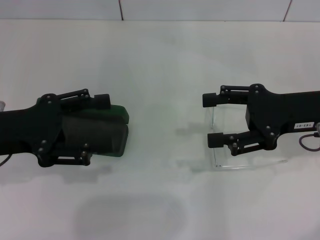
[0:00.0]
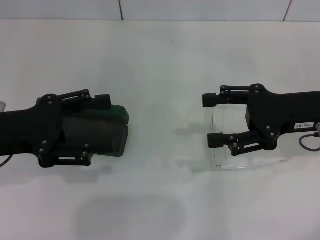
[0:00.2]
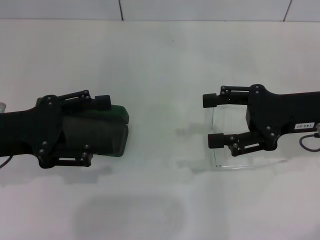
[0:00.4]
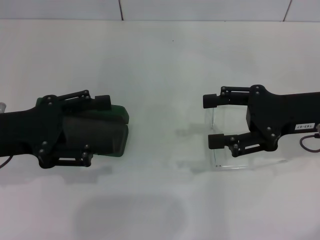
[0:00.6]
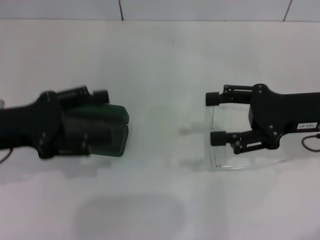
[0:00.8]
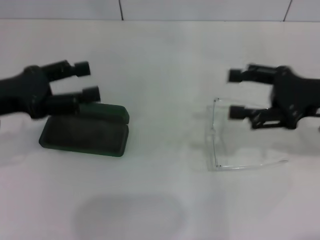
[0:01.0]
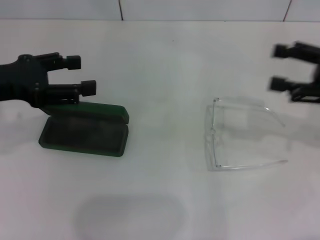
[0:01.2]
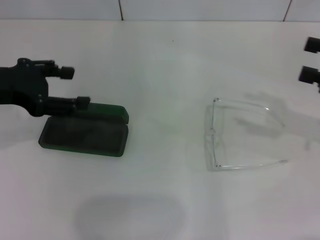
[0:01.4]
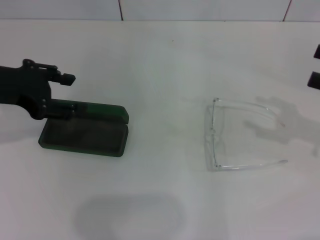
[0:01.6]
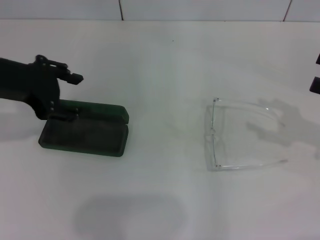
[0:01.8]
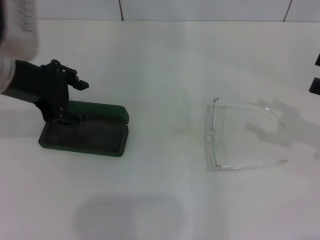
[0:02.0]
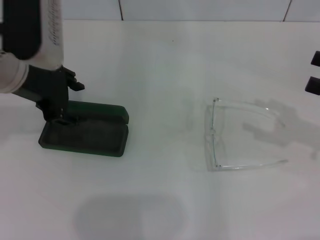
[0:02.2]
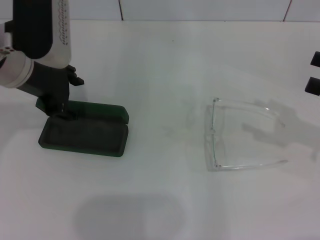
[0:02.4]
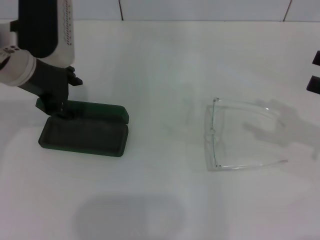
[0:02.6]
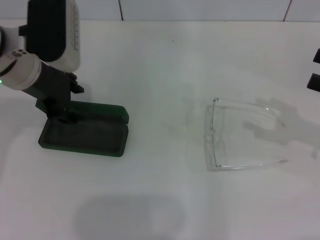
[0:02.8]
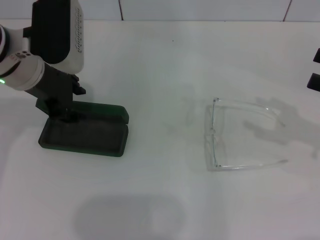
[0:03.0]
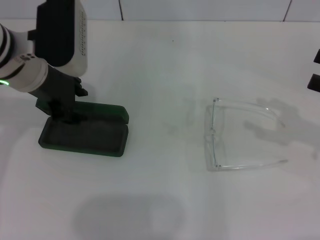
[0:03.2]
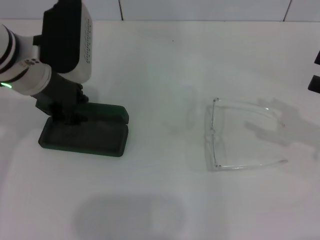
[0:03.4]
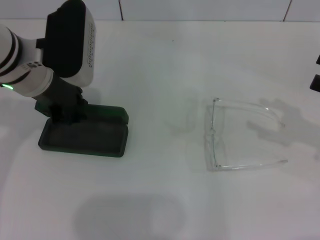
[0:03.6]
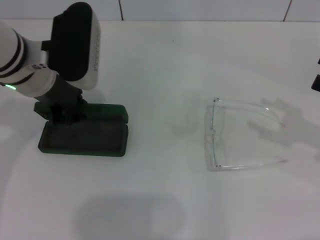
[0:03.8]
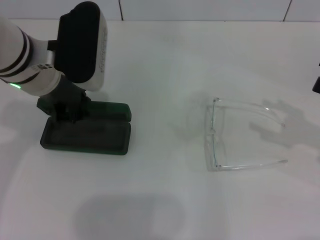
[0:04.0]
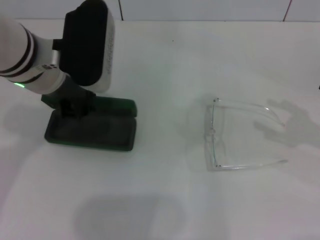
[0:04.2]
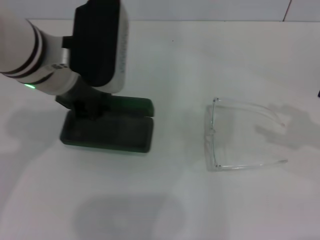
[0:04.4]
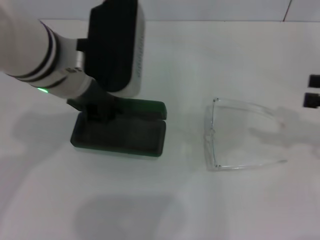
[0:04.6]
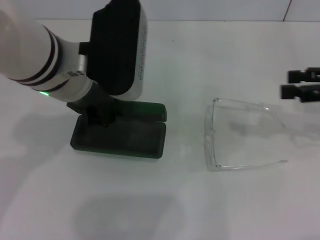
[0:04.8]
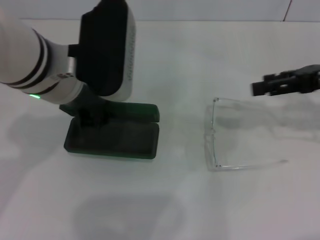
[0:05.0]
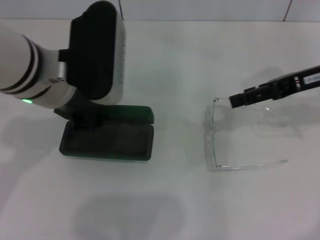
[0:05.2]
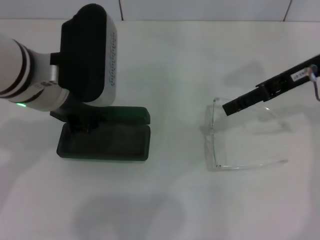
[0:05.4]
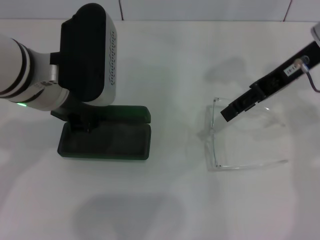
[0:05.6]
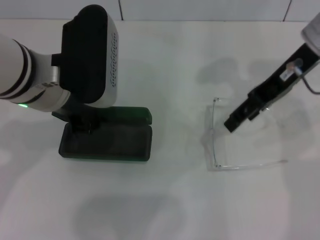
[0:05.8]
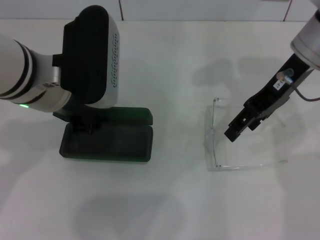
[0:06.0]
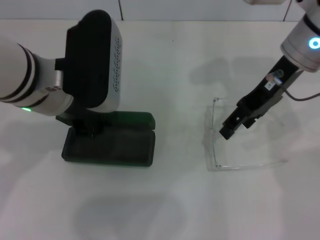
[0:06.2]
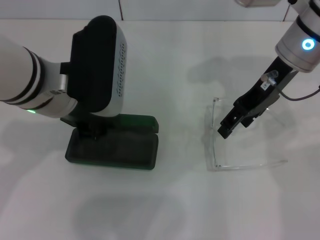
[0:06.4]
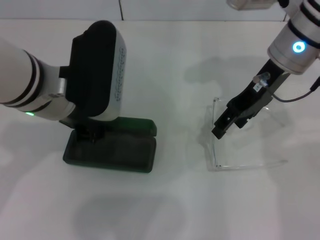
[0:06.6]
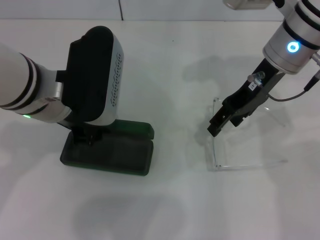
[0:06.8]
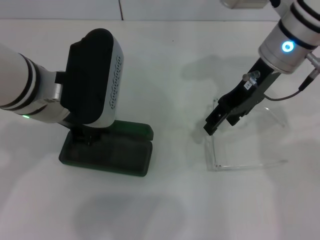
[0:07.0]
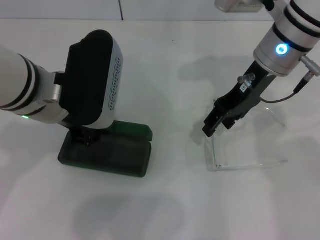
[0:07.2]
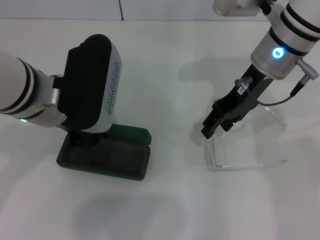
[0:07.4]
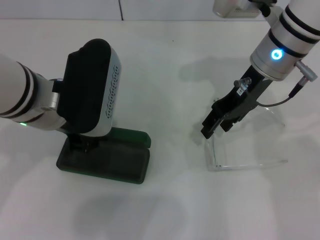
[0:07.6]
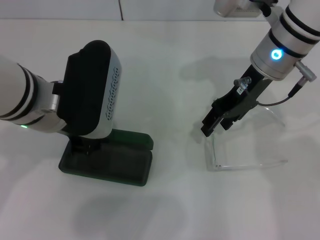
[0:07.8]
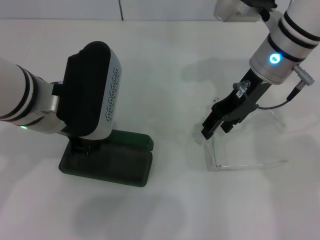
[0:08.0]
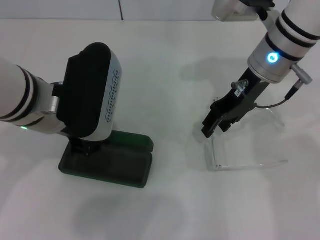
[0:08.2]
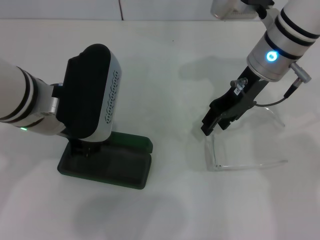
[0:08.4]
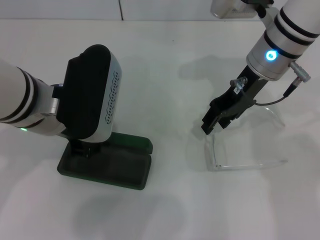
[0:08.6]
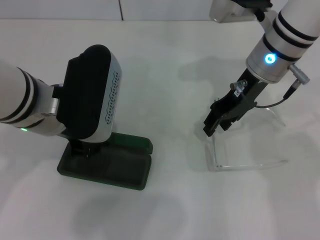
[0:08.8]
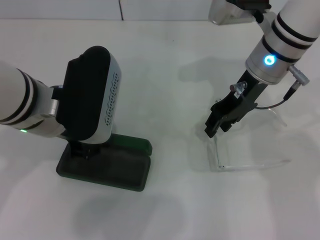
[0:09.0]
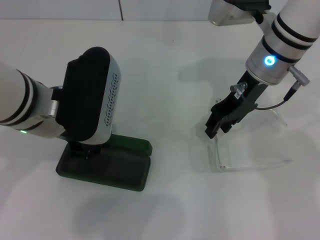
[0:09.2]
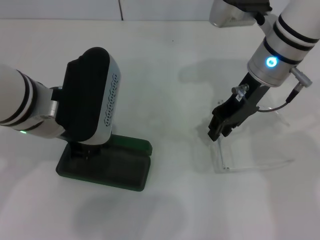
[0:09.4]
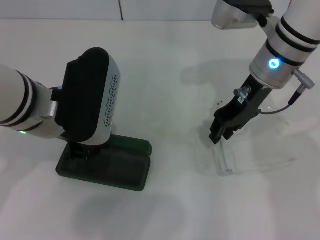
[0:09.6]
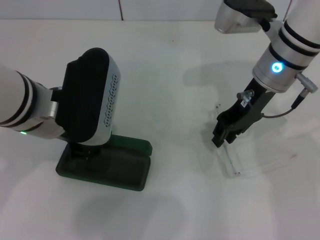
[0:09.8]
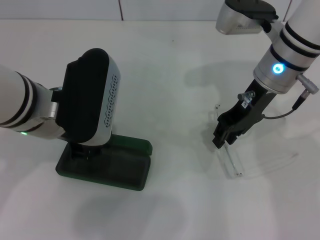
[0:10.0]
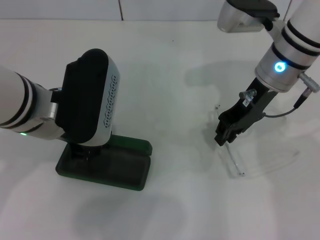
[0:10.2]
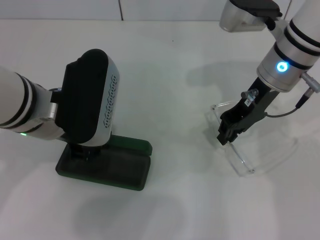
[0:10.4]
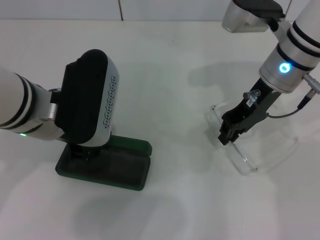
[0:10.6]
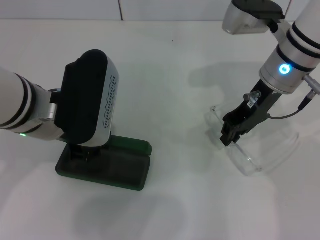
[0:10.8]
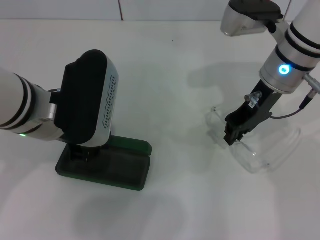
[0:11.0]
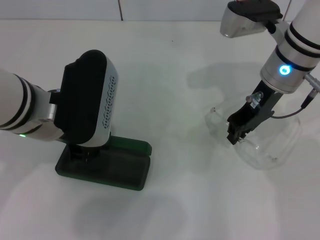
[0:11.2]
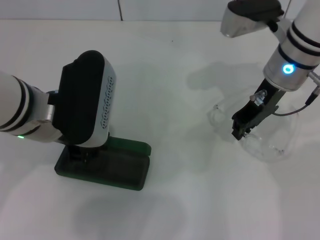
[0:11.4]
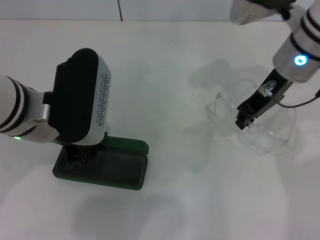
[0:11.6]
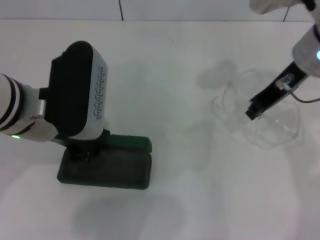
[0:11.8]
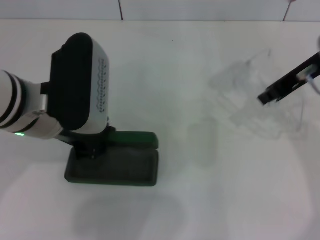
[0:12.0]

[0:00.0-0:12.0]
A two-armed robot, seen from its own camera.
Step, 0:00.0 to 0:03.2: Grab the glasses case with your left hand.
Step, 0:03.6 to 0:11.0: Grab the eyeglass frame with your right hand.
0:00.0 to 0:01.6: The left gripper goes roughly 10 cm upward and forward; the right gripper is displaced to the right by approximately 10 cm.
0:01.6 to 0:03.0: The left gripper is displaced to the right by approximately 10 cm.
0:03.0 to 0:04.4: The left gripper is displaced to the right by some 5 cm, and closes.
0:04.4 to 0:06.0: The right gripper is displaced to the left, forward and upward by approximately 25 cm.
0:06.0 to 0:07.6: The right gripper moves about 5 cm.
0:07.6 to 0:09.0: The two grippers keep their place.
0:09.0 to 0:10.4: The grippers stay close to where they were, moving slightly.
0:10.4 to 0:12.0: The right gripper travels upward and to the right by approximately 10 cm.

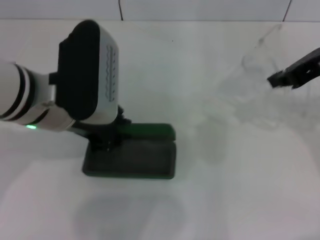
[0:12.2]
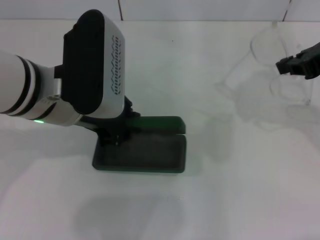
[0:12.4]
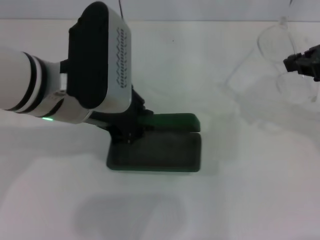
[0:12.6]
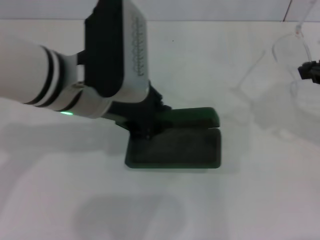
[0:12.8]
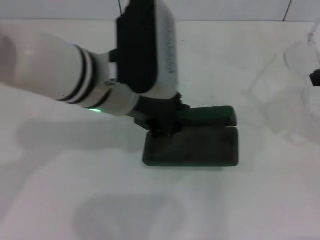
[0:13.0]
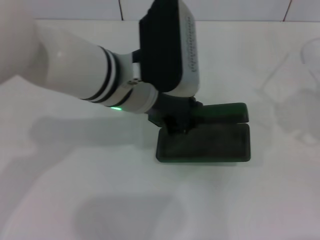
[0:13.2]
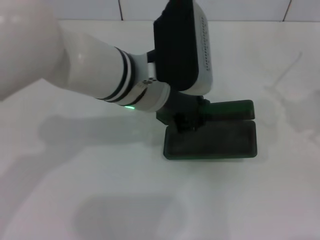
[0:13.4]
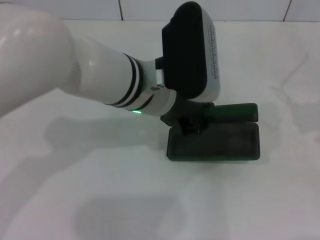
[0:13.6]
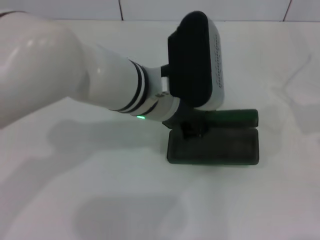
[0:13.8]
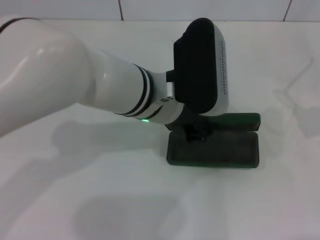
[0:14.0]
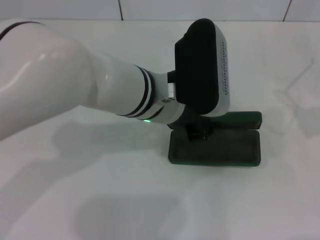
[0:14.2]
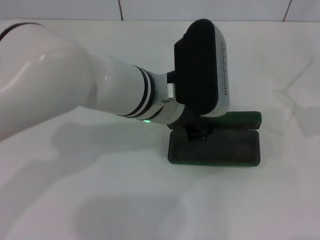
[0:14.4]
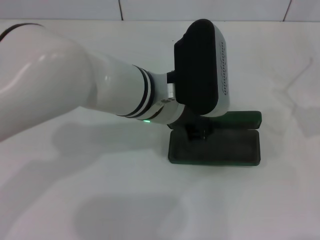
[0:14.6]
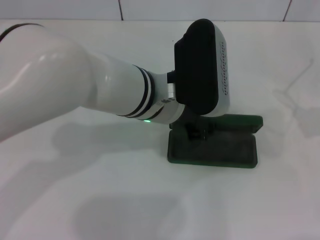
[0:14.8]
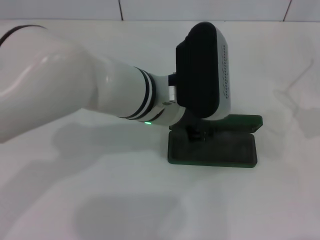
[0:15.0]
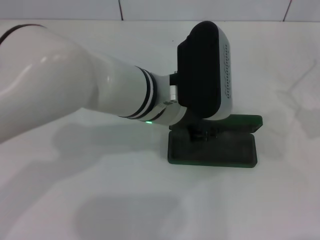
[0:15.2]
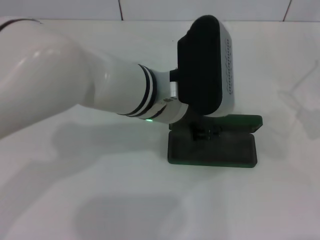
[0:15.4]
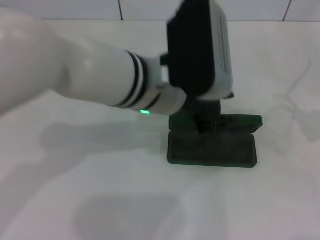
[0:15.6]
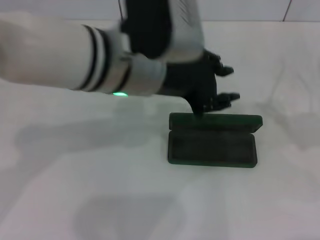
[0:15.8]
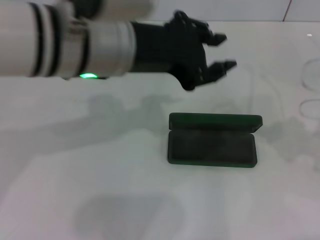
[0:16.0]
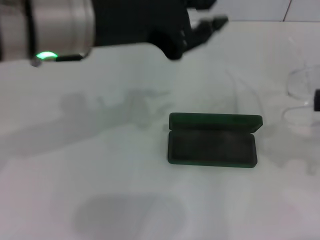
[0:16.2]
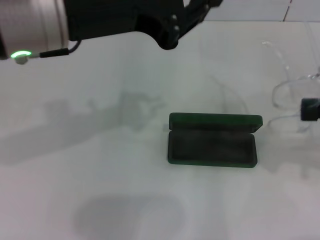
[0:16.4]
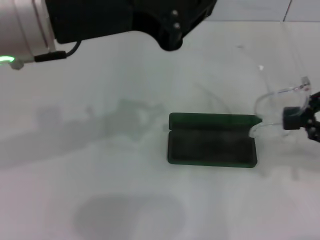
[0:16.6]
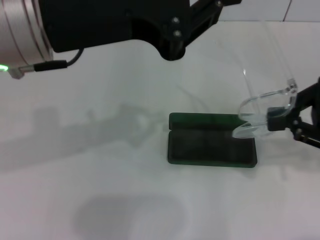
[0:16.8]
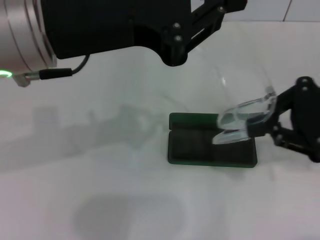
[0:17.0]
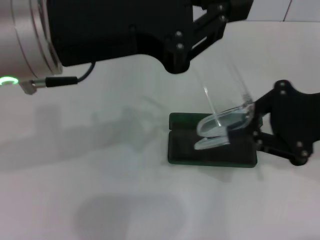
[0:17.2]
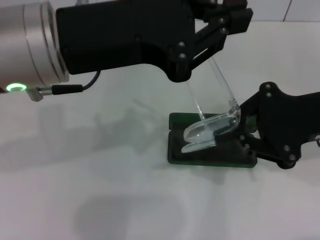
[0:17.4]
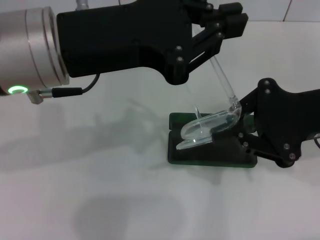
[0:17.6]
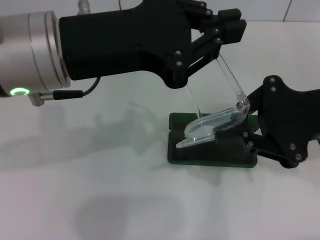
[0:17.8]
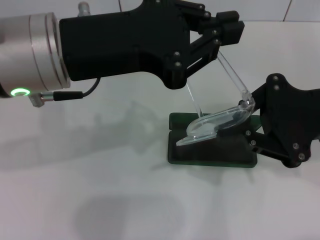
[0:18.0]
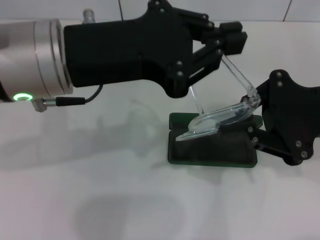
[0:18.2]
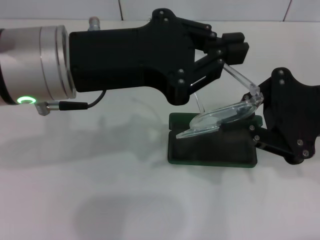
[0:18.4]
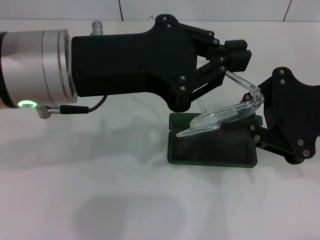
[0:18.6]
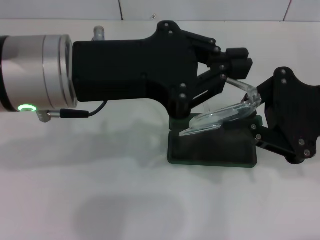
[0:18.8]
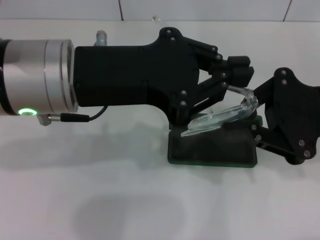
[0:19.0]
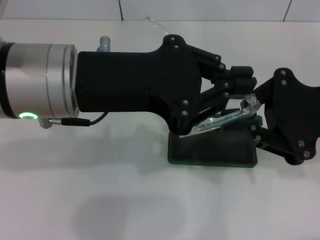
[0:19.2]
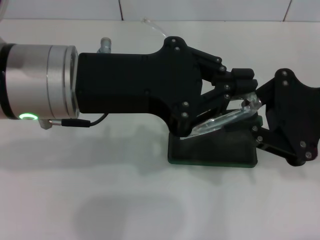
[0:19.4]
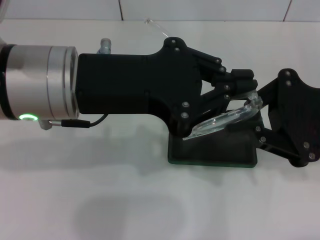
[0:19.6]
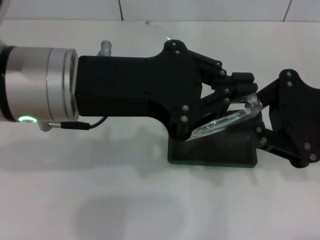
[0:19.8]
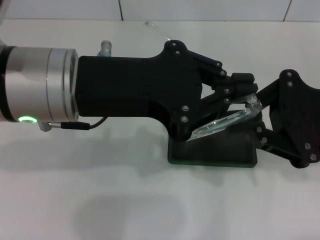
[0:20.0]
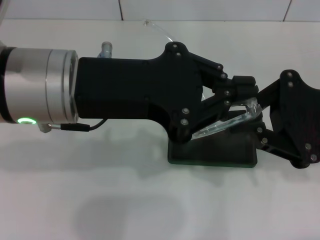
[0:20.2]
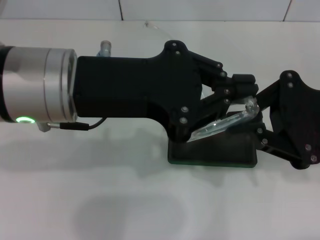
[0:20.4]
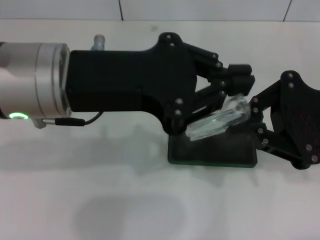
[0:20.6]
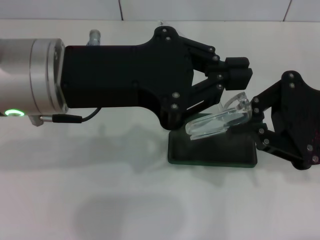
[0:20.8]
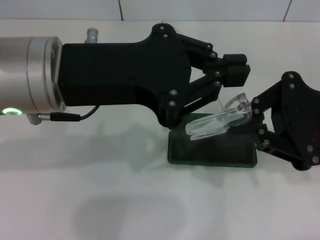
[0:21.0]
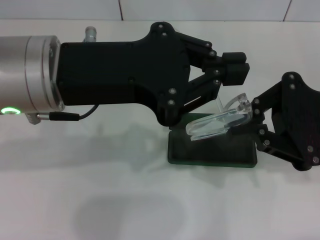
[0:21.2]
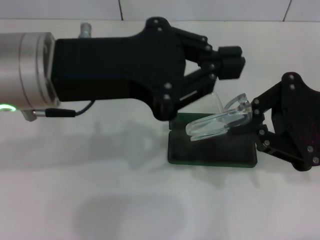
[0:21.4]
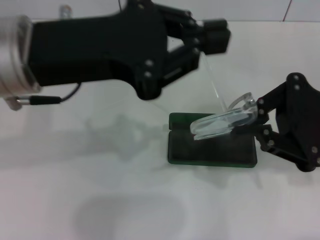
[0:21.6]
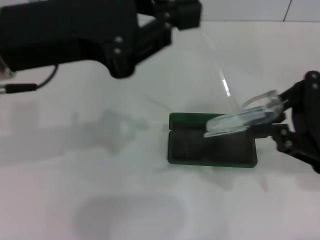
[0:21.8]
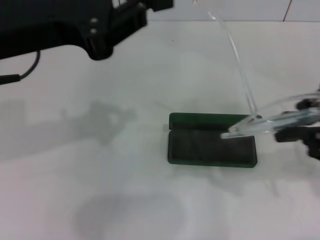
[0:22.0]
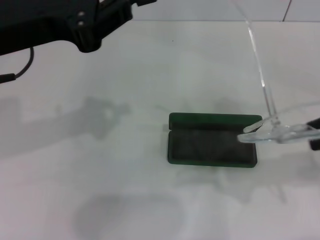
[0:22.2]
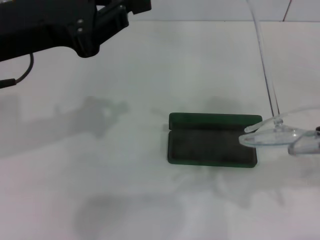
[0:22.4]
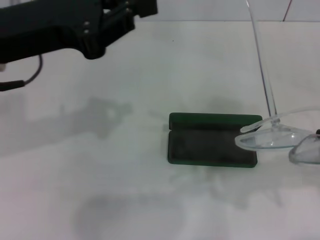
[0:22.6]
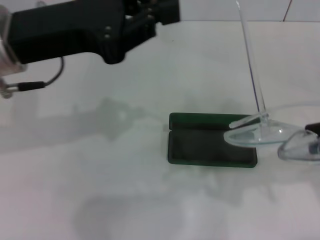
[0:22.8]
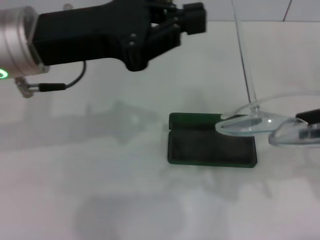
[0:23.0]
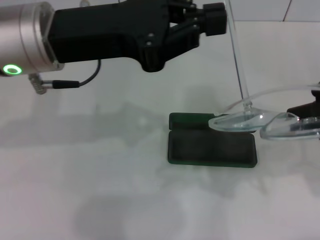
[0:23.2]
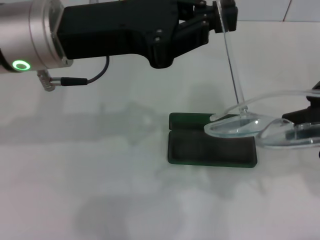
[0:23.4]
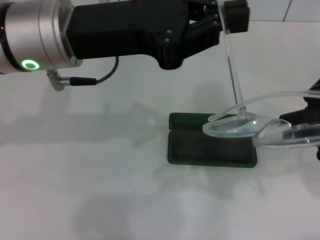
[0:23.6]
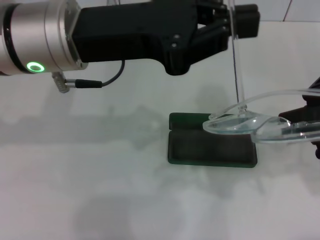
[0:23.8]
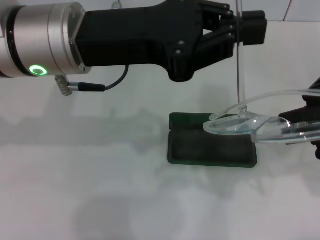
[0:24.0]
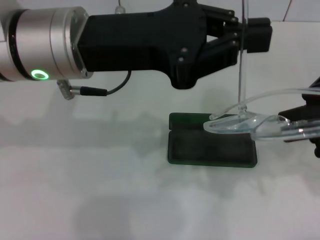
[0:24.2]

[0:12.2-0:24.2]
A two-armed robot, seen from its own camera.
Step, 0:12.2 to 0:15.4: Place the glasses case in the center of the table with your left hand.
0:12.2 to 0:13.8: The left gripper travels to the right by approximately 10 cm; the right gripper shifts approximately 15 cm to the right and backward.
0:13.8 to 0:15.2: The grippers move only a little.
0:15.2 to 0:16.6: The right gripper heads to the left, covering approximately 5 cm. Meanwhile the left gripper travels upward and to the left by some 20 cm.
0:16.6 to 0:18.2: The right gripper shifts roughly 10 cm to the left.
0:19.8 to 0:21.2: Both grippers stay put.
0:21.2 to 0:22.6: The right gripper moves some 5 cm. Meanwhile the left gripper travels to the left by about 5 cm.
0:22.6 to 0:24.2: The left gripper goes about 10 cm to the right.
